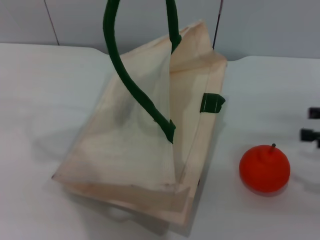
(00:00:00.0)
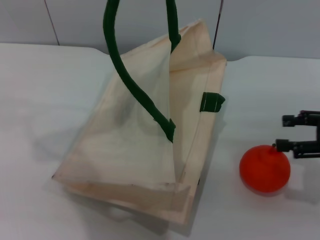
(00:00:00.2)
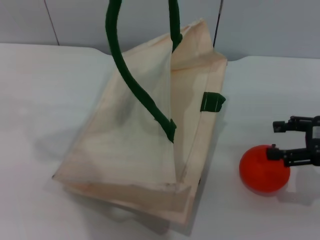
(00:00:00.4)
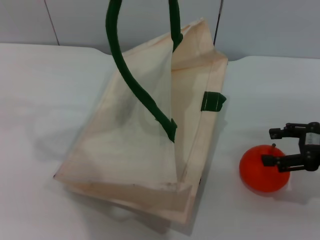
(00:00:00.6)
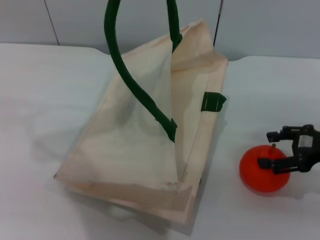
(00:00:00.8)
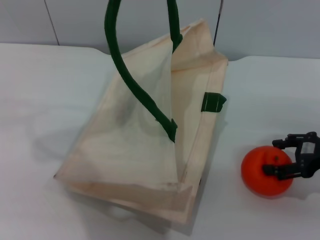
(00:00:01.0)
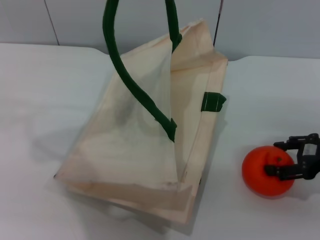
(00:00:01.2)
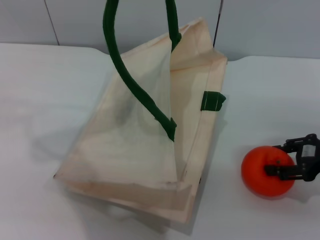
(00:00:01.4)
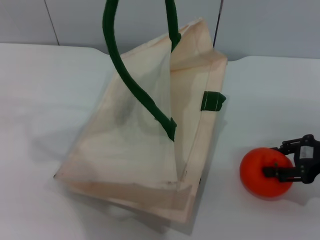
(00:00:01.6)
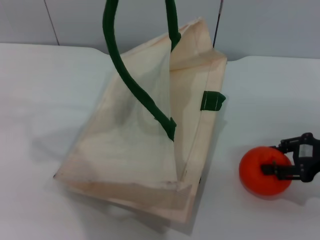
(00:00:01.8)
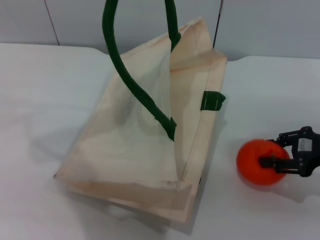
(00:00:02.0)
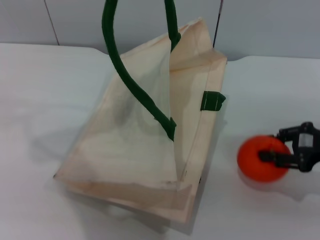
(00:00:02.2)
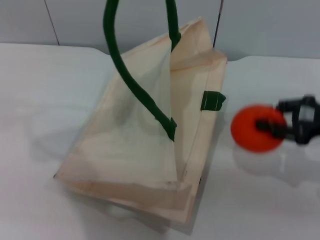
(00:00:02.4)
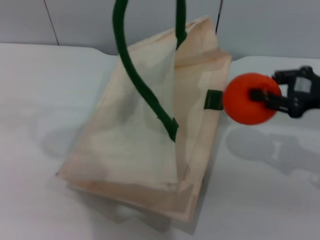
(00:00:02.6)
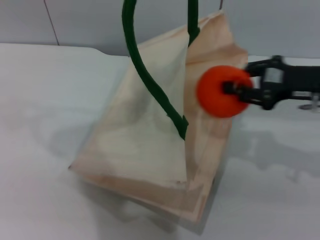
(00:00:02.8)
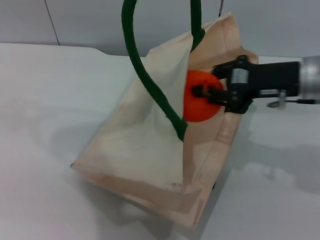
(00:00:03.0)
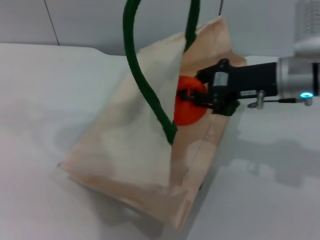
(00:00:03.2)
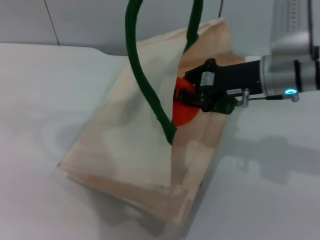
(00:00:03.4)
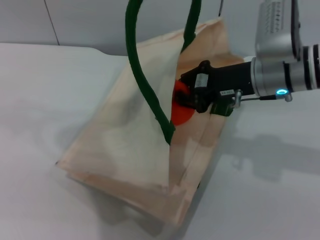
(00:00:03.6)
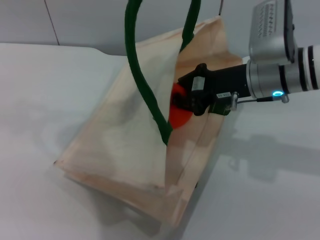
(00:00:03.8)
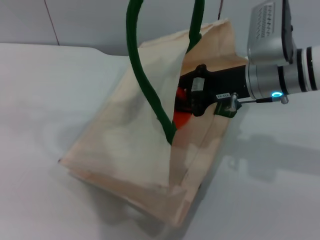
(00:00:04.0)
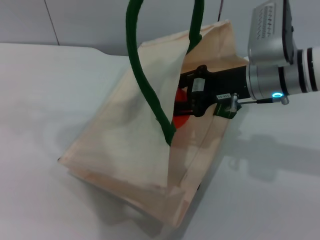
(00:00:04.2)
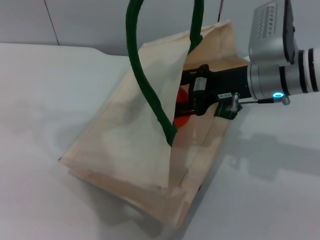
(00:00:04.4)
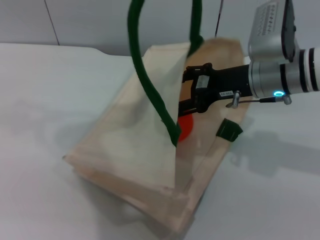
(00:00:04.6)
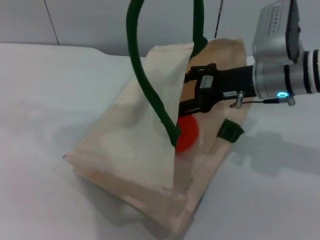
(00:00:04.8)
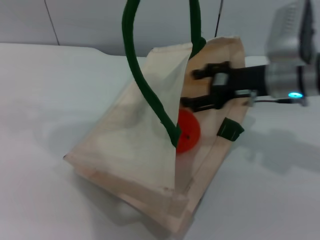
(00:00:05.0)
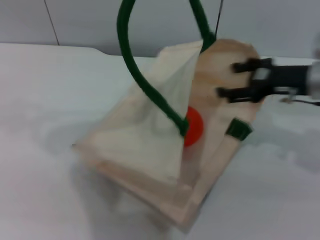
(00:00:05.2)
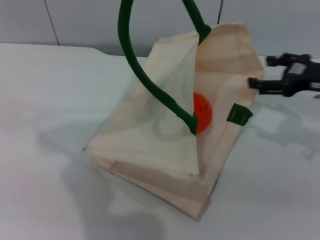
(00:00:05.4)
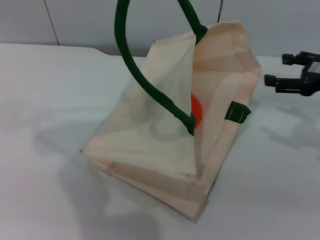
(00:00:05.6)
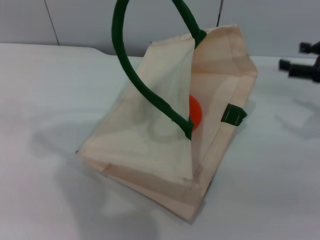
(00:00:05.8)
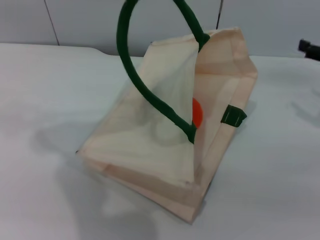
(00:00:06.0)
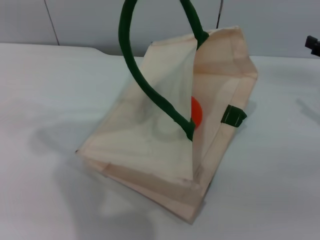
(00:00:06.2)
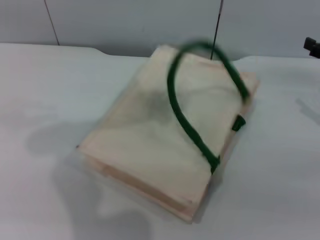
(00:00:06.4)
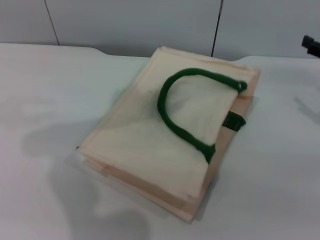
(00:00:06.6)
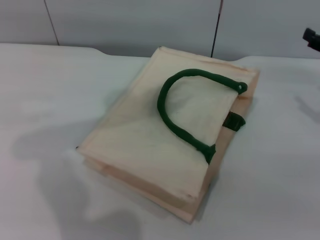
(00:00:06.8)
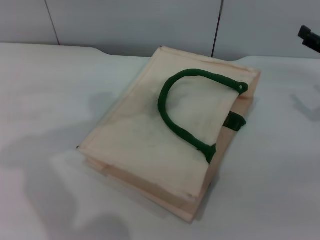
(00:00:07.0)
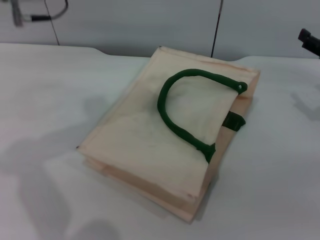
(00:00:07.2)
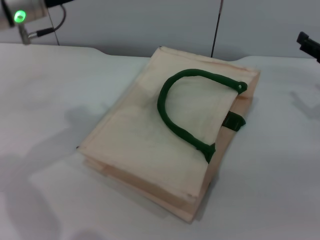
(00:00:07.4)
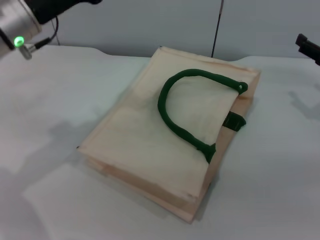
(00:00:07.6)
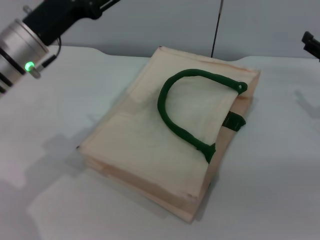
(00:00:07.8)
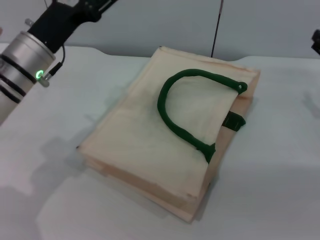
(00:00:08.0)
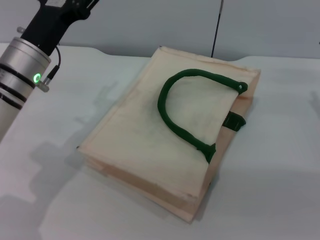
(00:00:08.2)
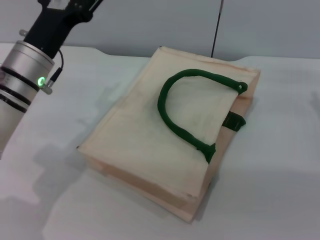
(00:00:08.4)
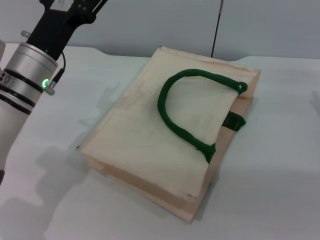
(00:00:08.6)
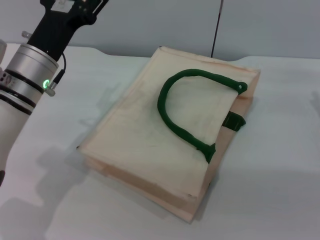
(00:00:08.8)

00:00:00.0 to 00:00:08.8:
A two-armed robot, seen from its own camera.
Task of the whole recording: pick up the orange from the table and place it in the white handbag.
Step, 00:00:00.0 to 00:00:02.4: Pick up the orange with the right gripper.
Step, 00:00:02.6 to 00:00:05.4: Place the orange into the woven bag with the right gripper.
Step, 00:00:05.6 to 00:00:06.6: Lower the woven bag with the left gripper to close it.
00:00:00.0 to 00:00:01.4: The right gripper is displaced to the left by roughly 5 cm.
00:00:01.4 to 00:00:03.0: The right gripper shifts roughly 15 cm to the left, upward and forward, and closes up.
00:00:03.0 to 00:00:04.4: The right gripper shifts some 5 cm to the left.
00:00:04.4 to 00:00:05.8: The right gripper heads to the right, covering some 20 cm, and opens.
00:00:05.8 to 00:00:07.4: The left gripper heads downward, covering approximately 15 cm, and opens.
00:00:07.4 to 00:00:08.8: The left gripper is displaced downward and backward by some 10 cm.
